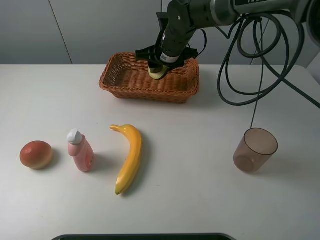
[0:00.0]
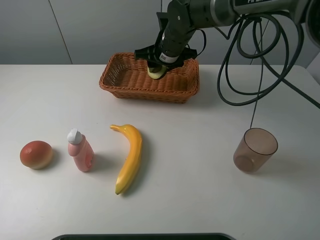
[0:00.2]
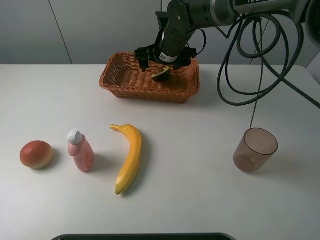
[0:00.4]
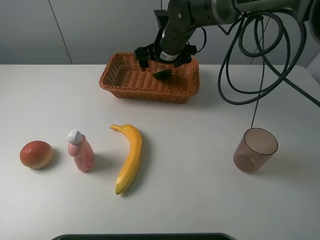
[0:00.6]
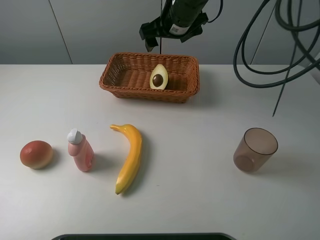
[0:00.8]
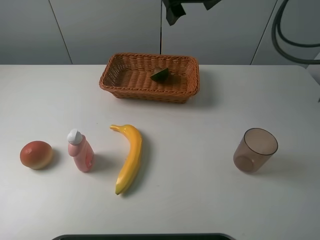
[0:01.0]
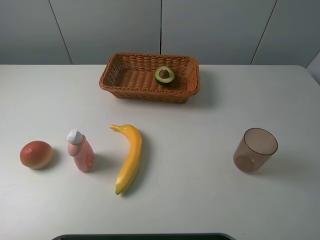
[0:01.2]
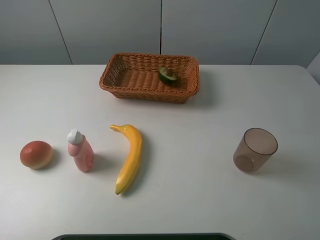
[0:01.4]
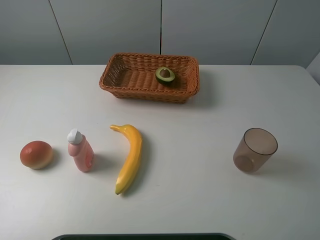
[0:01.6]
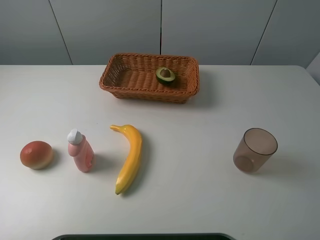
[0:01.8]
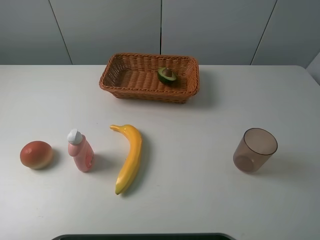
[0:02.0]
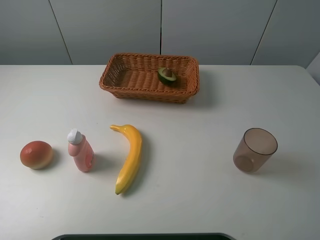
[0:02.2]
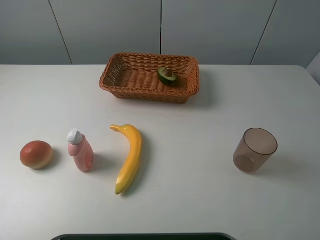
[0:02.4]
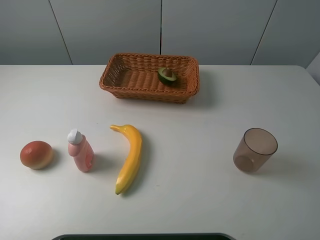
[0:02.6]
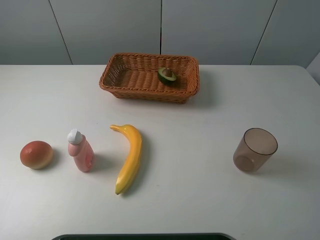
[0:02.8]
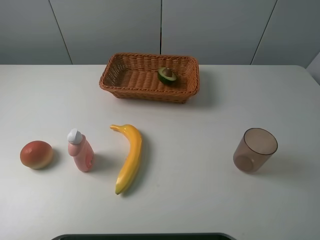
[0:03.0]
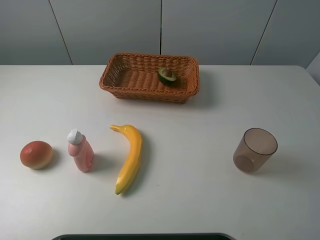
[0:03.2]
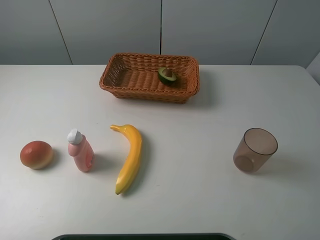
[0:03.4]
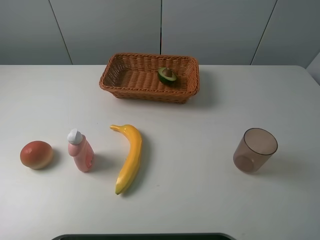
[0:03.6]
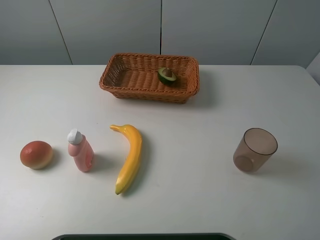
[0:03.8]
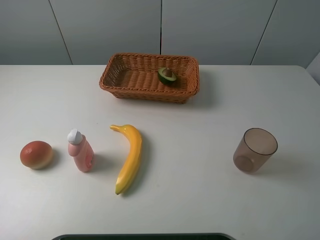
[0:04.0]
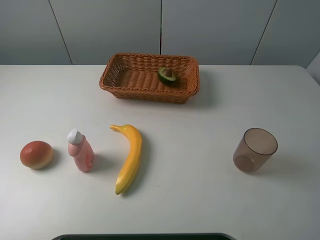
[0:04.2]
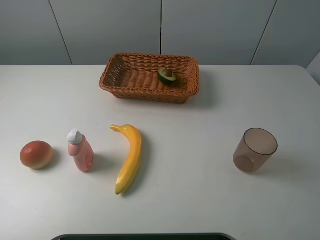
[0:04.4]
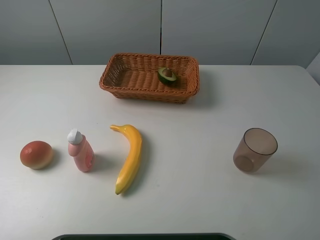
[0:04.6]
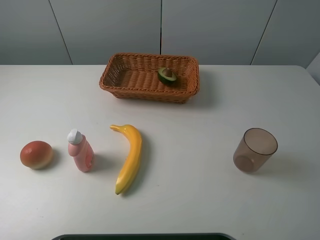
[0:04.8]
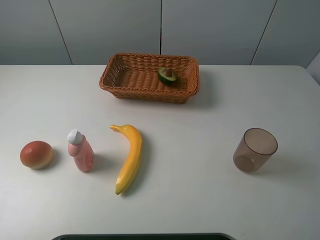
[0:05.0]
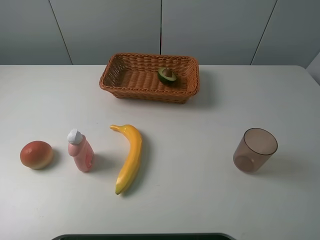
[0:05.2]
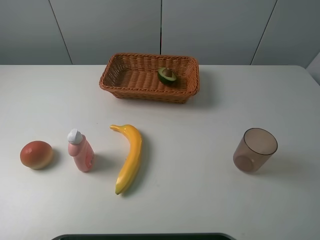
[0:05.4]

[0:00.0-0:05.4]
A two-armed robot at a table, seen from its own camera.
Task of the whole recording: randomly pick up an item from the table and put it in the basket.
0:00.0 to 0:01.4: The right gripper shifts some 40 cm upward, to the right and backward, and opens its fingers.
0:04.0 to 0:05.4: Neither gripper changes place.

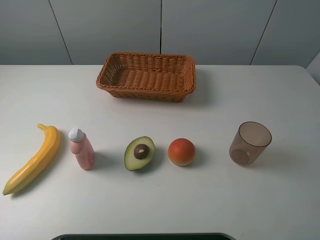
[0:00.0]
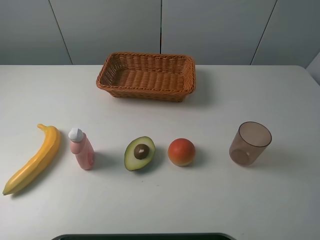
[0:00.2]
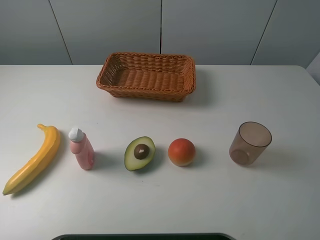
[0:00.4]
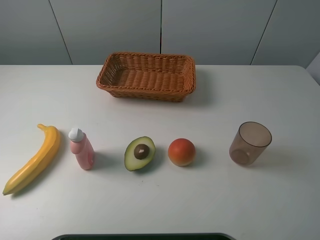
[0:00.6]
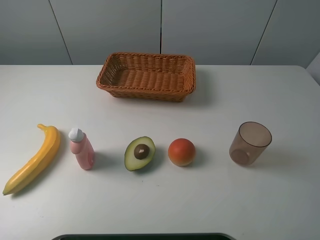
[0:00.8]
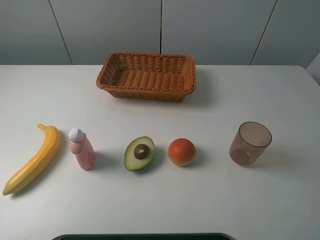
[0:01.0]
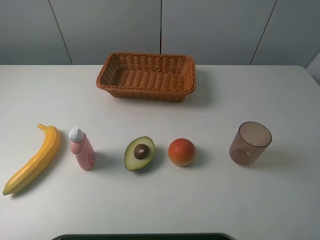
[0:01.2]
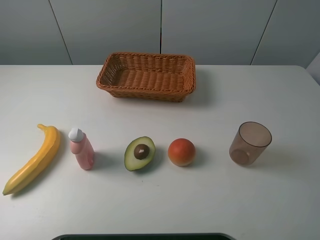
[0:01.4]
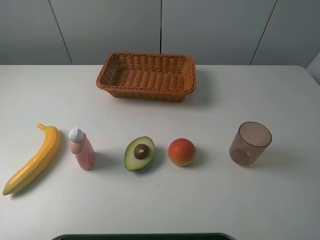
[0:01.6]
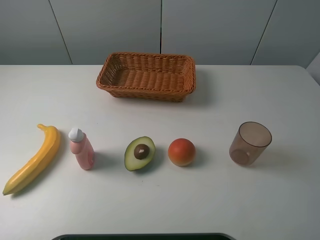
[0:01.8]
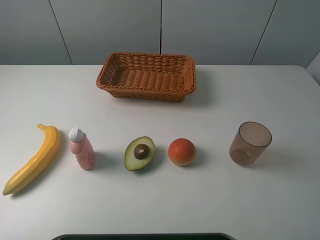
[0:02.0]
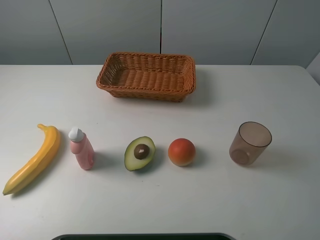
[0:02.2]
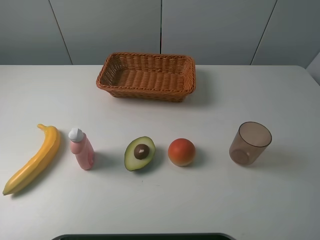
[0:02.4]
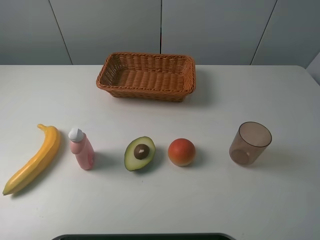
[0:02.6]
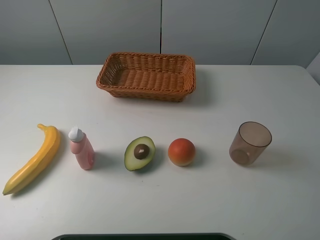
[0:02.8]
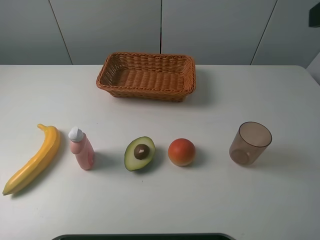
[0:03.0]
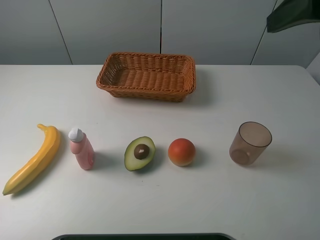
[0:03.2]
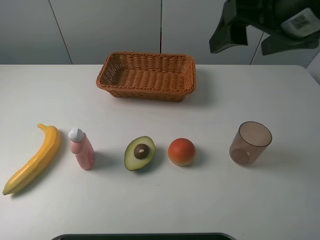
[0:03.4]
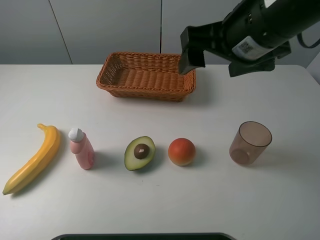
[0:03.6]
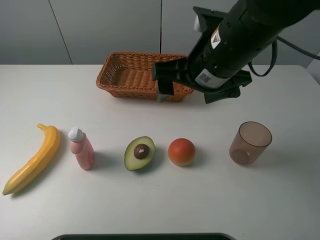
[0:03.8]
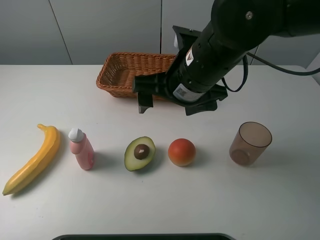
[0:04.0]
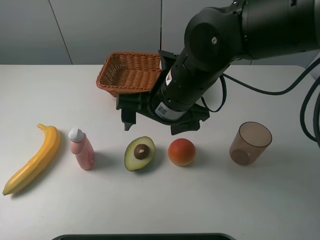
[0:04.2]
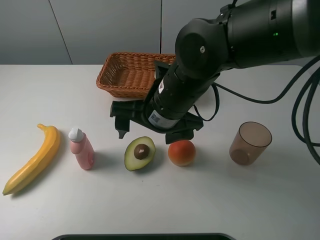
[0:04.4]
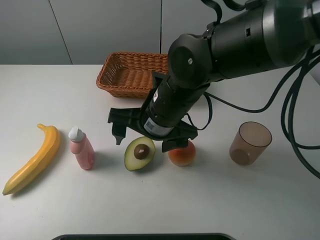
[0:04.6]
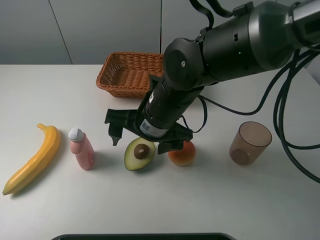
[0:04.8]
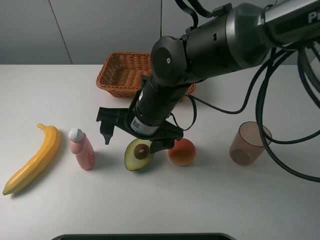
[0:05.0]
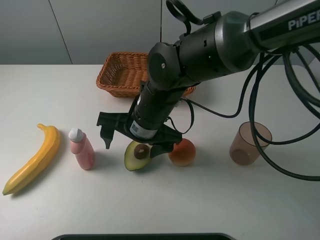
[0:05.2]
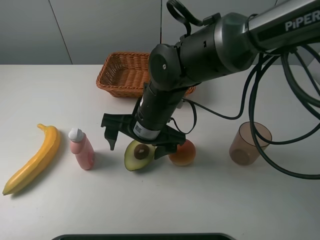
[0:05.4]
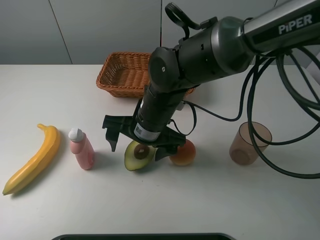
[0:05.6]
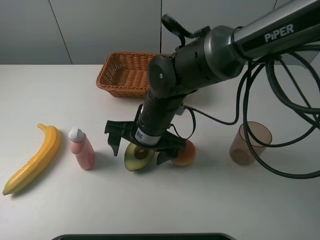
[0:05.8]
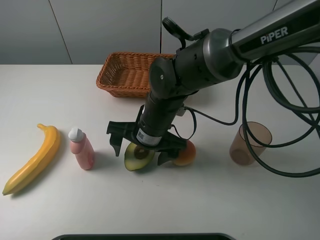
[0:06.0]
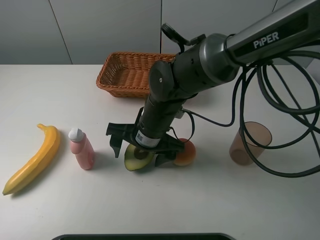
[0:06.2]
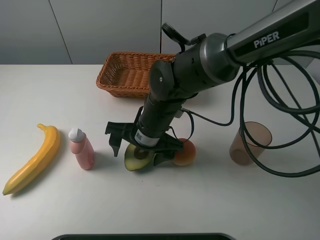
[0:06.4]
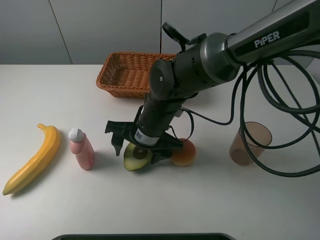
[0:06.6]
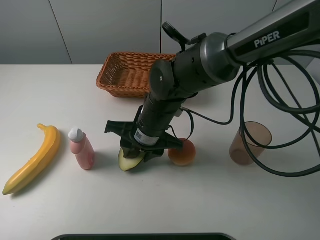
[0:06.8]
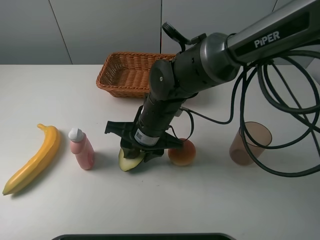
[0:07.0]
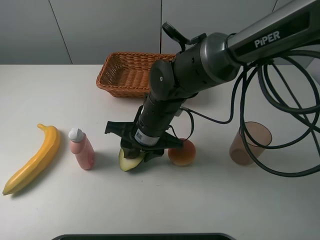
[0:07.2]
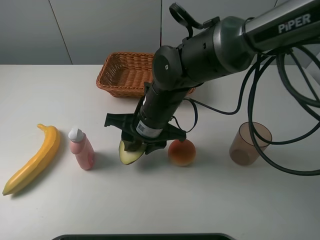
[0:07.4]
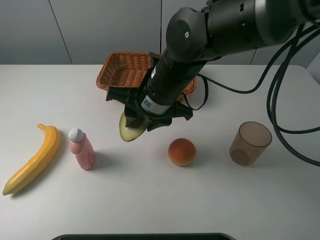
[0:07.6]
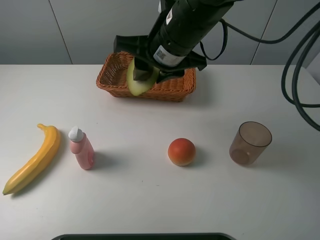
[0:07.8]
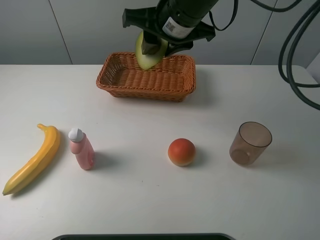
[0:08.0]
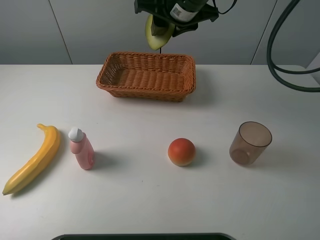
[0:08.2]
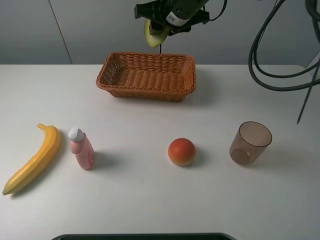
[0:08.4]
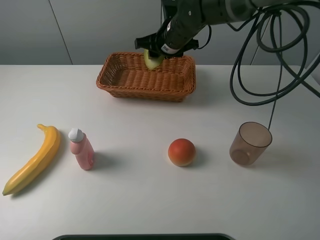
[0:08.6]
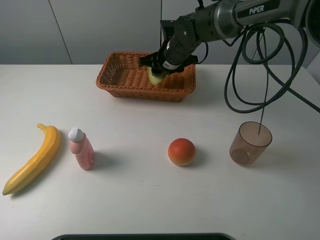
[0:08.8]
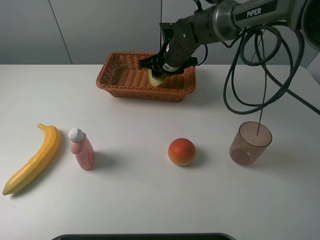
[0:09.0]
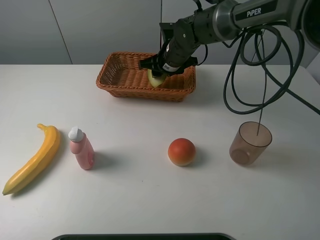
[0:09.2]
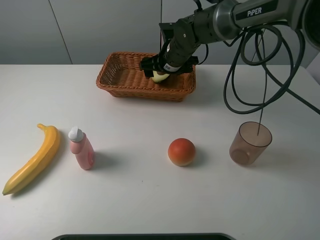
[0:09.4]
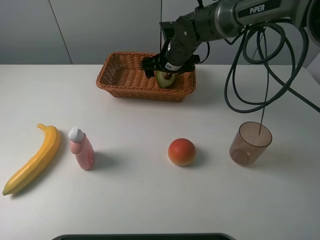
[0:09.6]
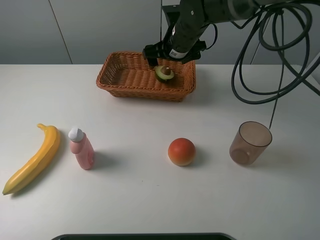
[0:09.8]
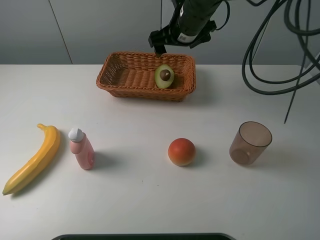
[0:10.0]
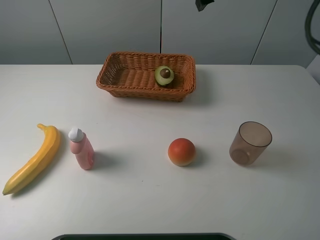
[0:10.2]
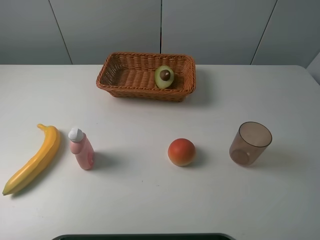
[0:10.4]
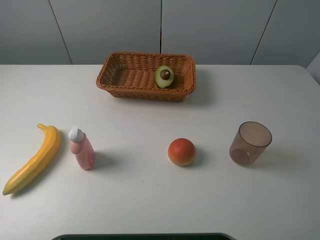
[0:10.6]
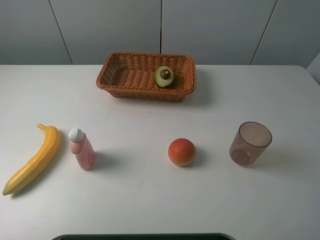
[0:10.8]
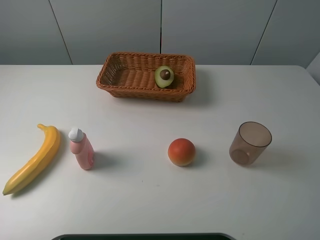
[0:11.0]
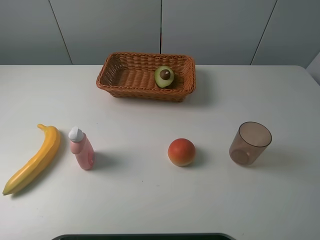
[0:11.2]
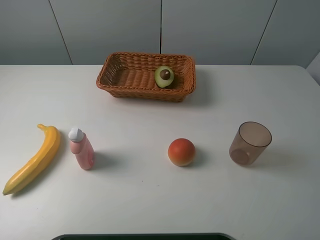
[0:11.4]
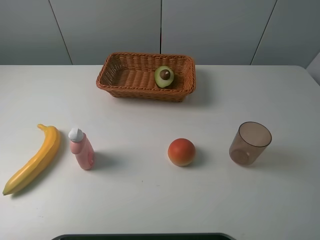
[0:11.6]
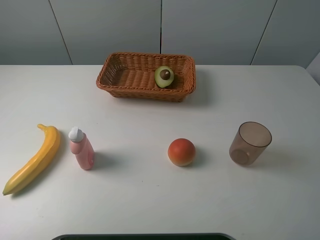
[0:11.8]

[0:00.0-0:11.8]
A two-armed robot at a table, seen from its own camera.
Task of the whole recording: randomly pick up an item from the table and put it in the basket.
Step, 0:00.0 to 0:07.2: Grasp the avocado with the right gripper.
Step, 0:07.4 to 0:10.0: Place the avocado into the basket with the right gripper.
0:00.0 to 0:01.4: The two grippers keep their place.
0:03.0 to 0:04.4: The right gripper goes approximately 30 cm to the left and downward.
0:04.4 to 0:06.0: The right gripper shifts approximately 5 cm downward.
0:06.0 to 0:07.4: The right gripper closes.
0:07.4 to 0:08.8: The right gripper shifts approximately 20 cm forward.
0:08.8 to 0:10.4: The right gripper shifts approximately 30 cm upward and to the right, and opens up.

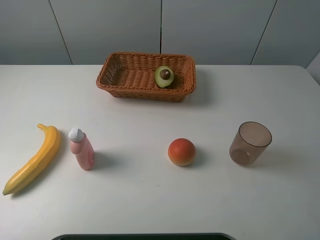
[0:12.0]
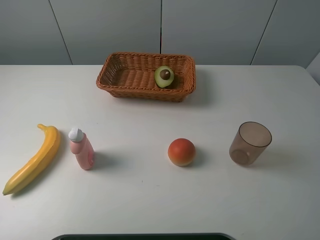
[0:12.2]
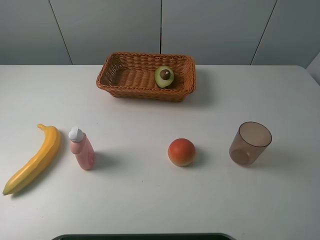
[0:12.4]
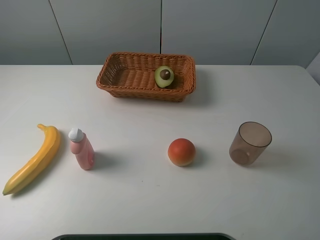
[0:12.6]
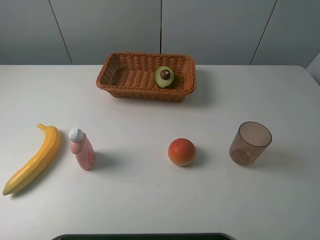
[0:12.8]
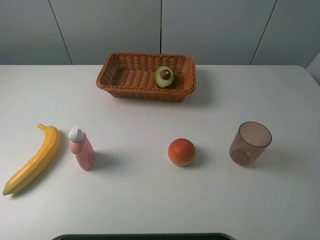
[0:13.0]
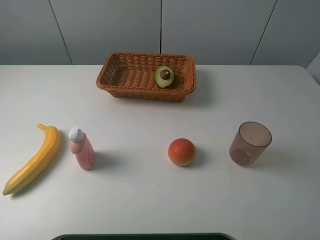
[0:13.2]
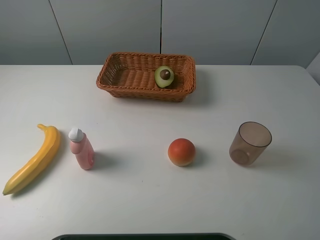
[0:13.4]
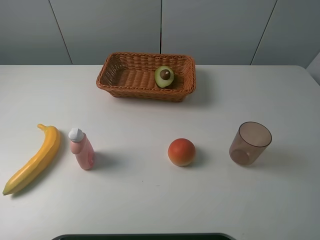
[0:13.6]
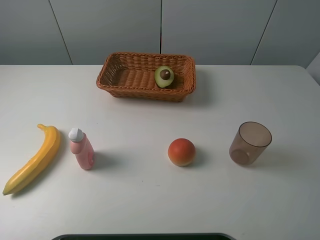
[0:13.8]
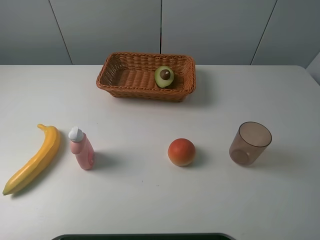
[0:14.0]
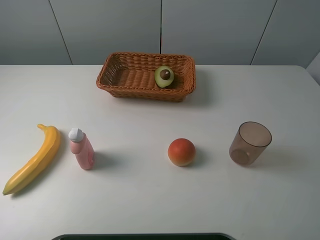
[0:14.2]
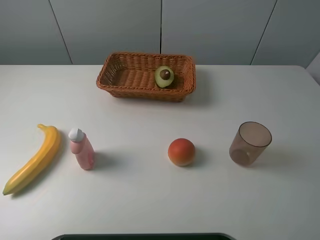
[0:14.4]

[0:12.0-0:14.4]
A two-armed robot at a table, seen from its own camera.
Task of the whole recording: randomly pick up an item from the table and put it in the basket.
0:13.2 to 0:14.4: Both grippers stay put.
